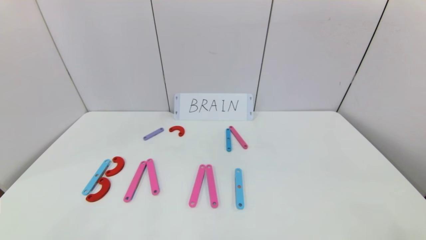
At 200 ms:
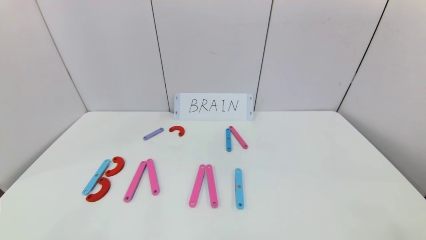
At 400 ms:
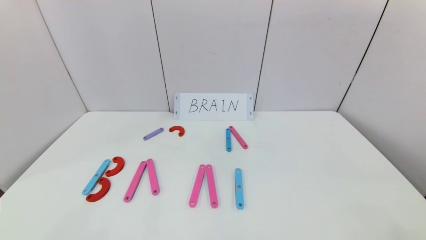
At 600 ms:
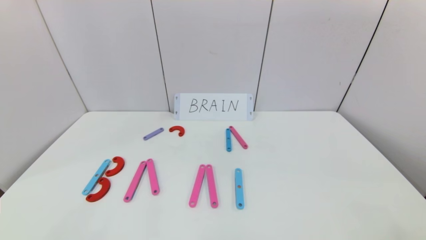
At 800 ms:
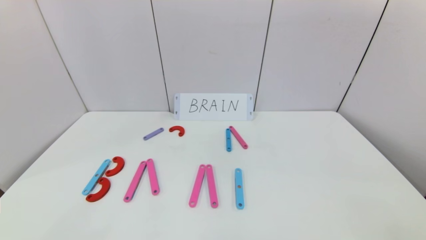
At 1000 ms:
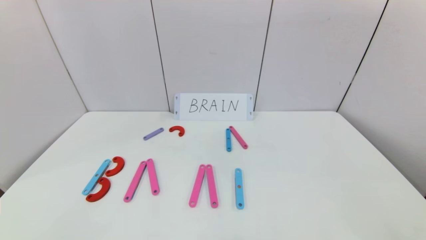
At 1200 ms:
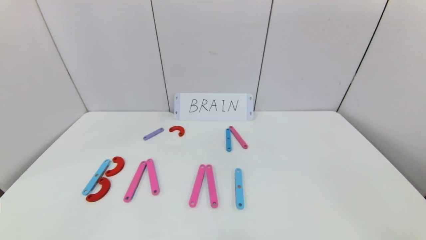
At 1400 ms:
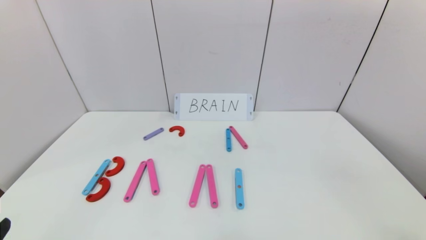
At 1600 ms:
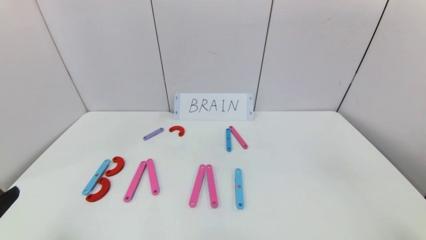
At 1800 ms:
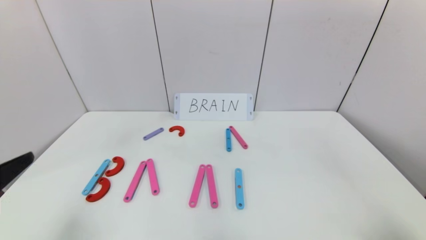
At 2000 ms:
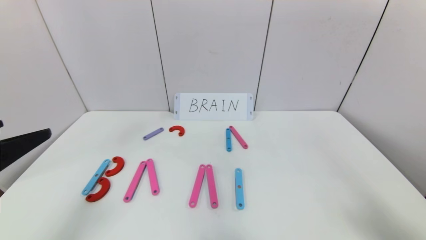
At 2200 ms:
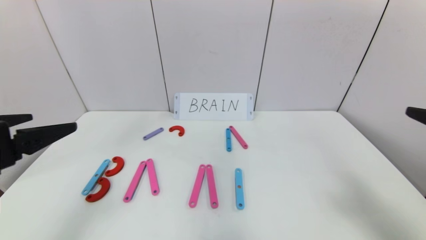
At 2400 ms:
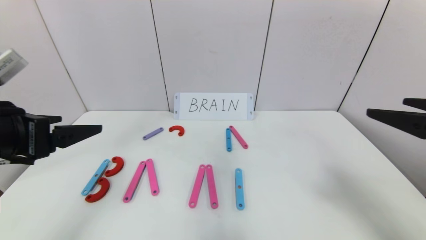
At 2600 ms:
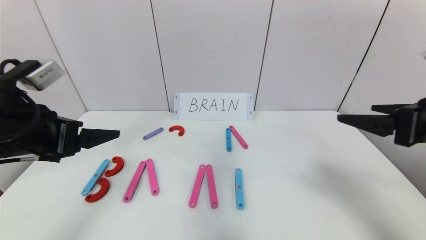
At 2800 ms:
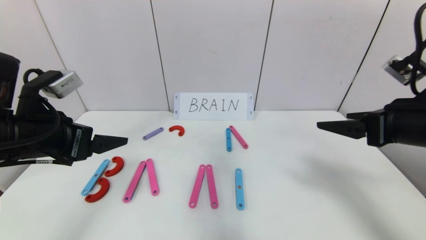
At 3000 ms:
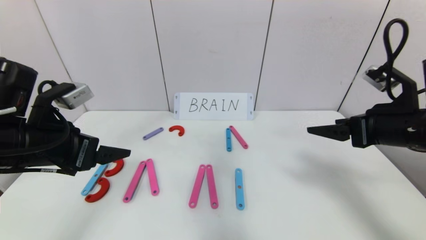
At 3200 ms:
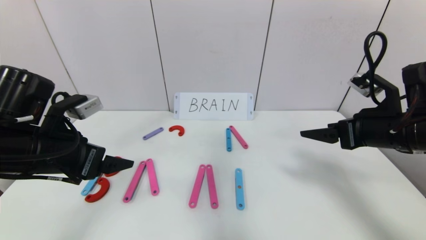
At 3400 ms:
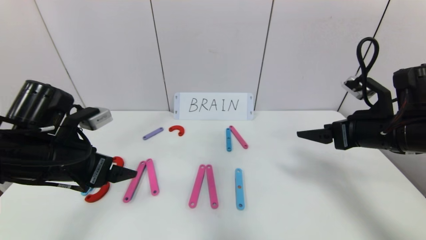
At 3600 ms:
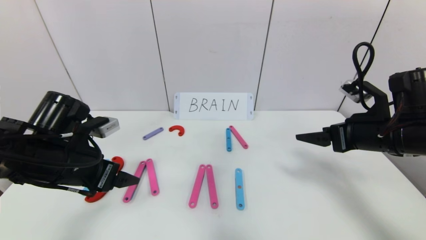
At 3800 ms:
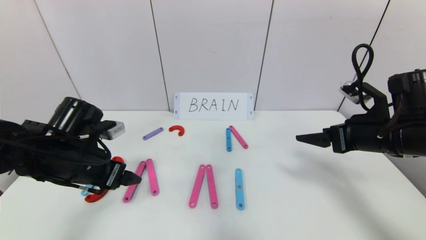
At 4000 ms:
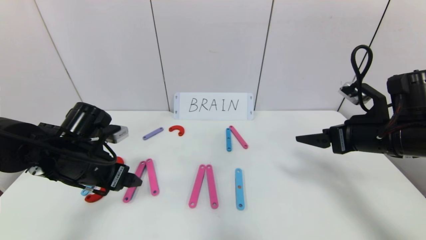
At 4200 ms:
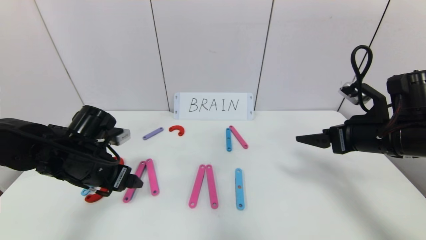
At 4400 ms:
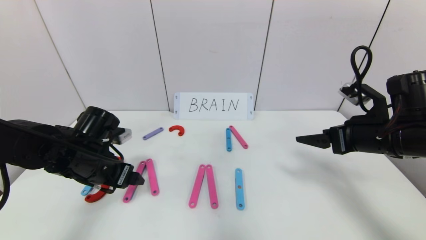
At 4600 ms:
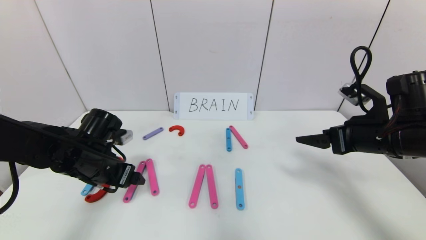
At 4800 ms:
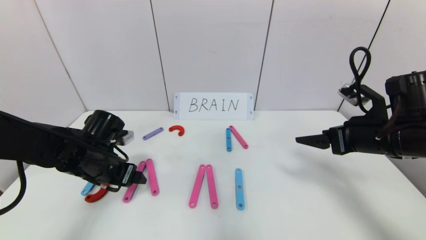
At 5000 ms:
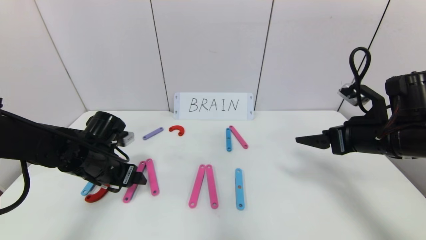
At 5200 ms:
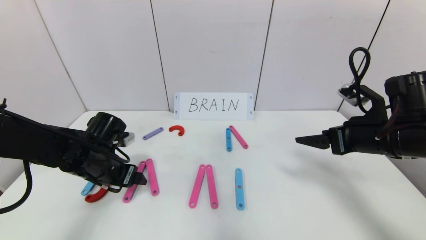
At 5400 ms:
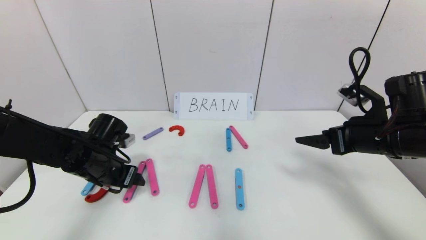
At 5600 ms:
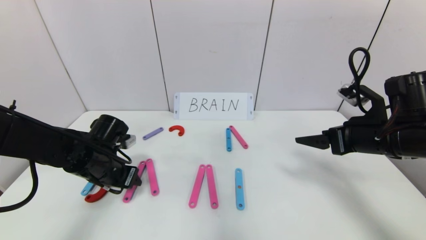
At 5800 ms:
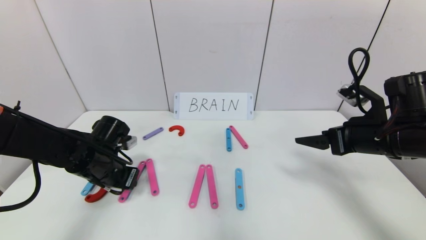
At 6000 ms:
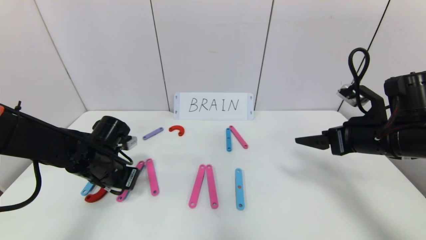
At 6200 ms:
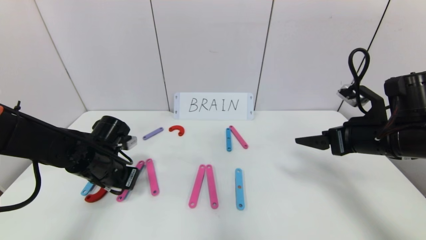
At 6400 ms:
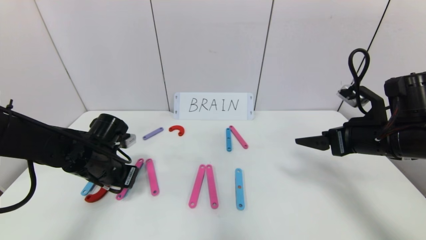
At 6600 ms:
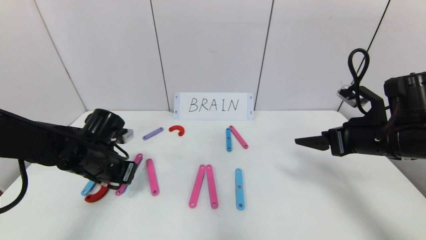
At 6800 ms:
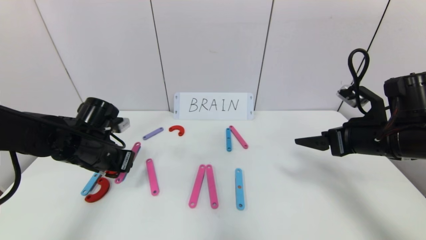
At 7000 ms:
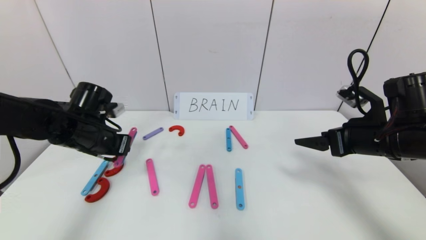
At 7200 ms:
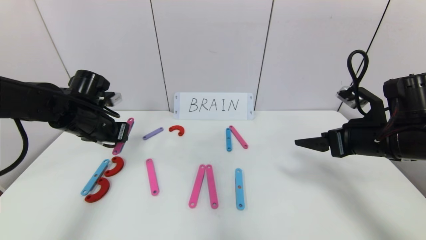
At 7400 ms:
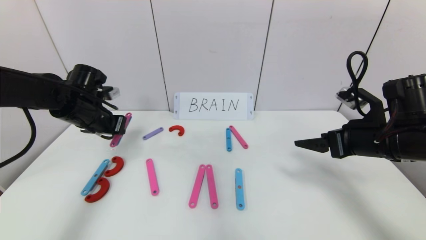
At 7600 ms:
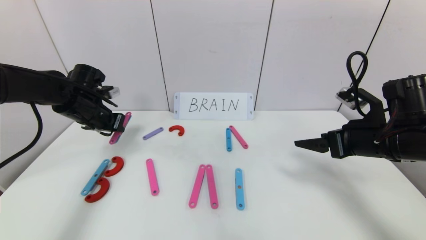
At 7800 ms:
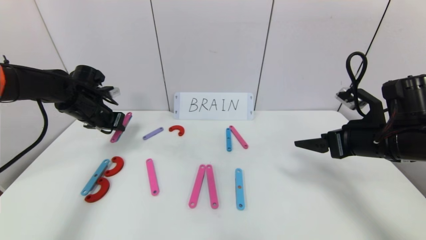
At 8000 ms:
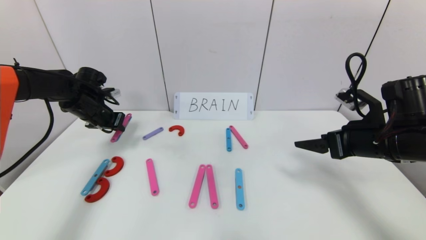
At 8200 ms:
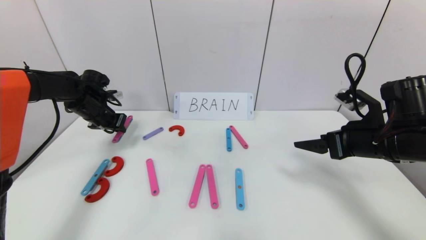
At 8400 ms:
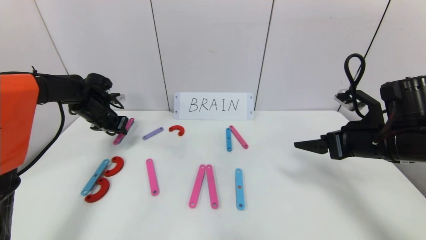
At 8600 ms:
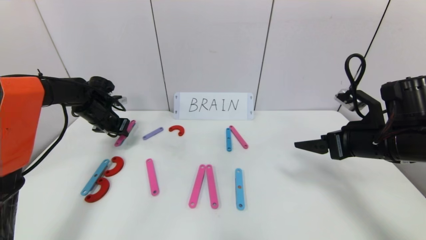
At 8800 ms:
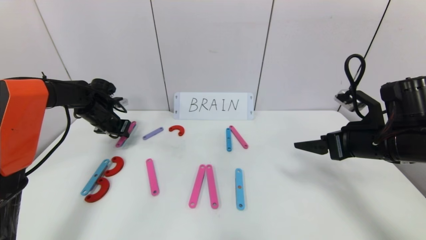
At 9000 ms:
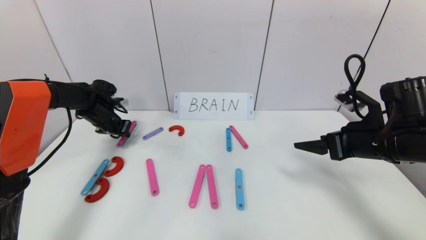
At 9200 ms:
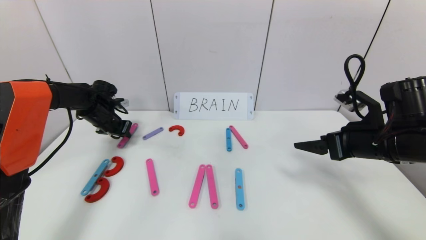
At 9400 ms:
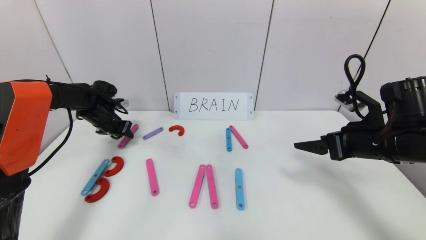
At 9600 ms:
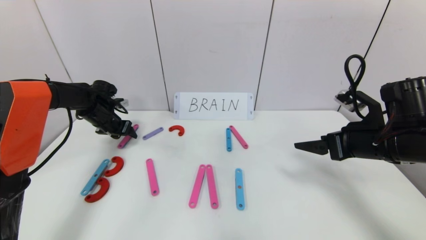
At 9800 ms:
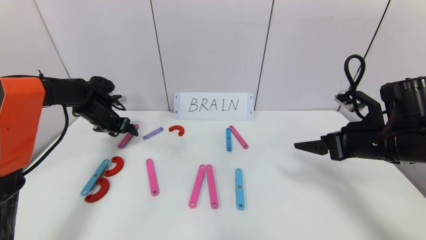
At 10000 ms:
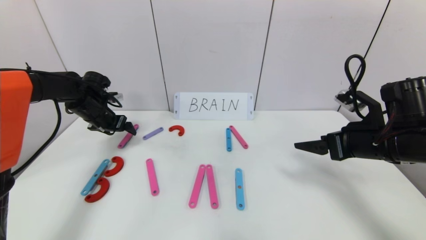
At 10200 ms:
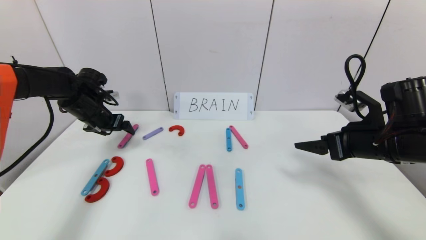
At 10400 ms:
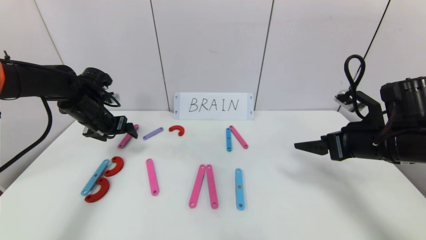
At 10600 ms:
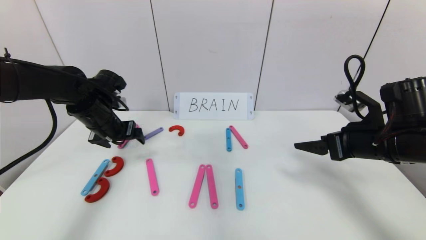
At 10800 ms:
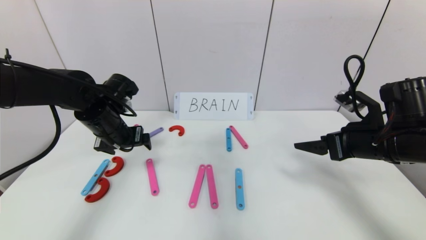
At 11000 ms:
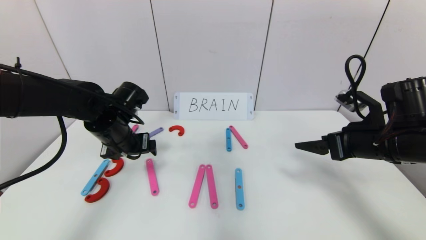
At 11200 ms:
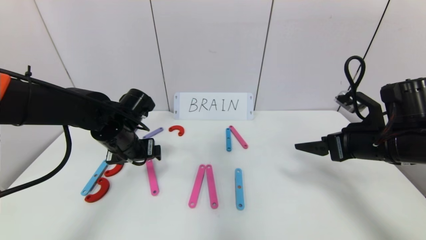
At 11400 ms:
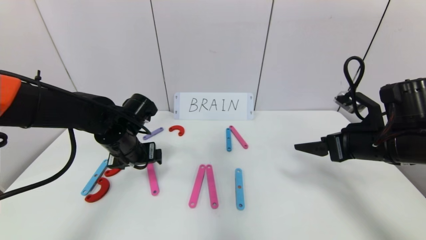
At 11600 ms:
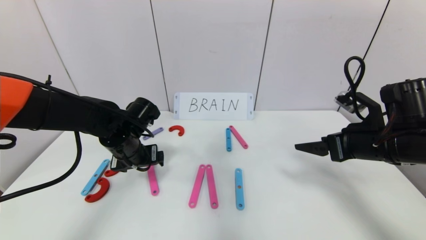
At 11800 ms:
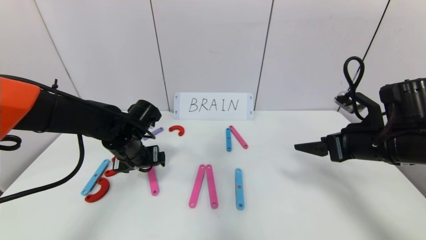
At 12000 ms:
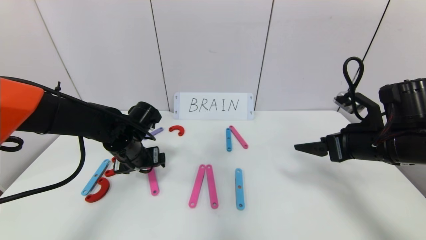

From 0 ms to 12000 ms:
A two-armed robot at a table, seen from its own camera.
Task of the whole recording: rearrange the word baai as brain.
From 1600 ms to 3000 ms: Both grippers move forward, approximately 20 cm.
From 3000 ms to 4400 ms: The left gripper shifts about 10 cm downward and forward.
From 4400 ms to 6000 ms: The left gripper closes its fingers.
From 6000 ms to 7600 ms: The left gripper travels forward, upward and to the left by approximately 15 cm.
From 7600 ms to 9000 ms: The left gripper goes about 10 cm forward and downward.
From 9000 ms to 10400 ms: The left gripper goes approximately 10 cm backward and upward, and opens.
From 10400 ms to 12000 ms: The left gripper moves to the right, backward and downward, approximately 15 cm.

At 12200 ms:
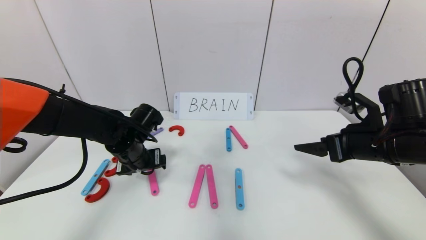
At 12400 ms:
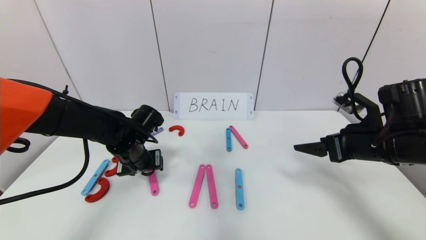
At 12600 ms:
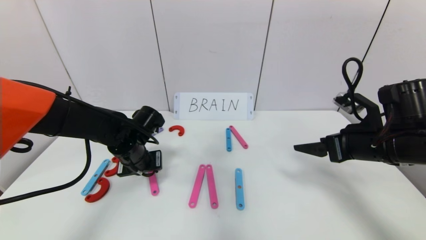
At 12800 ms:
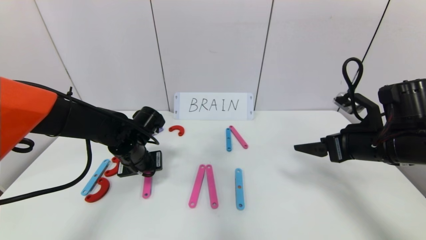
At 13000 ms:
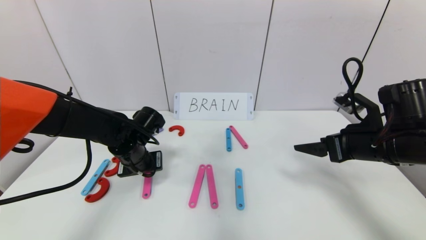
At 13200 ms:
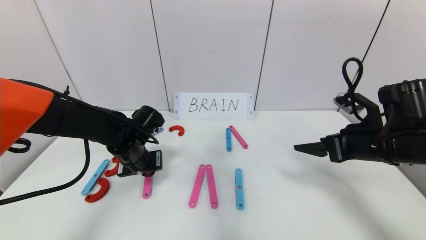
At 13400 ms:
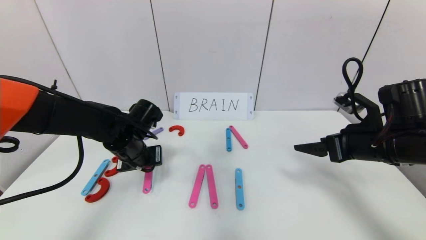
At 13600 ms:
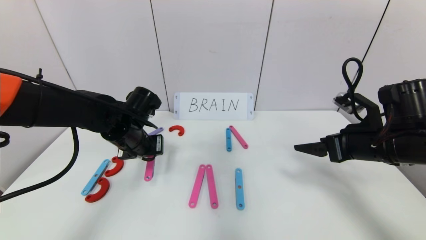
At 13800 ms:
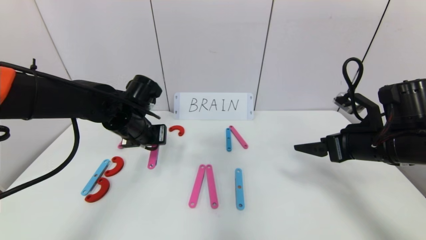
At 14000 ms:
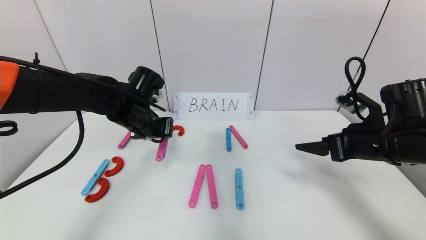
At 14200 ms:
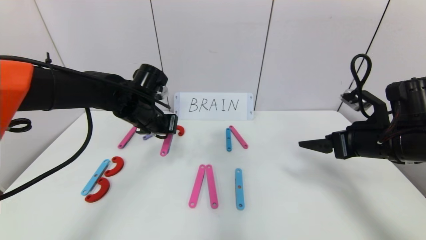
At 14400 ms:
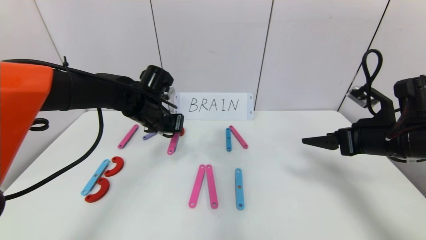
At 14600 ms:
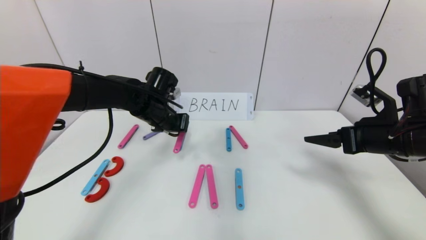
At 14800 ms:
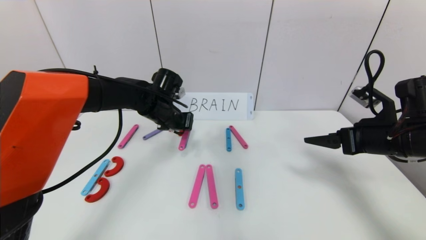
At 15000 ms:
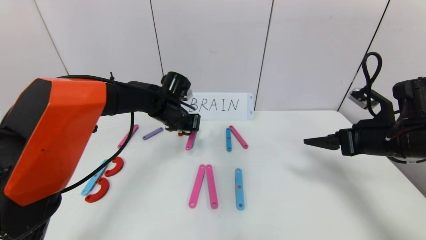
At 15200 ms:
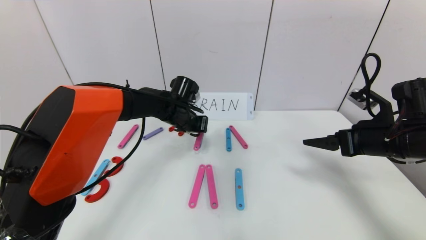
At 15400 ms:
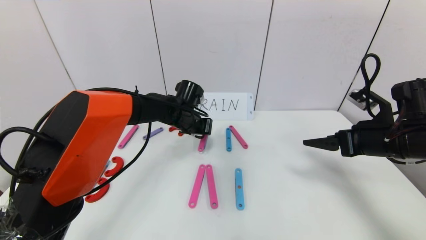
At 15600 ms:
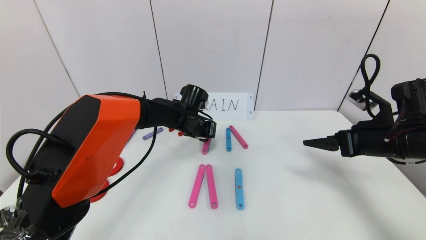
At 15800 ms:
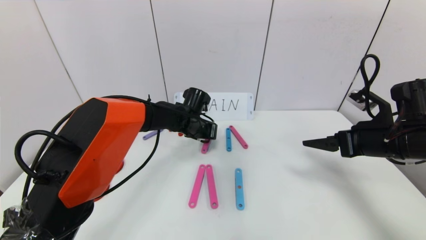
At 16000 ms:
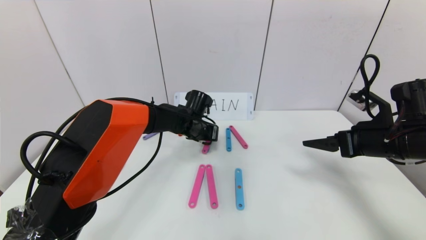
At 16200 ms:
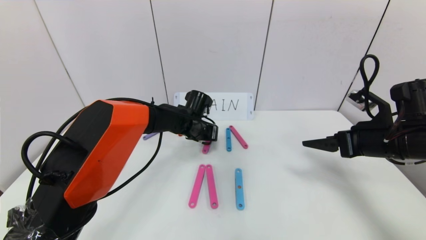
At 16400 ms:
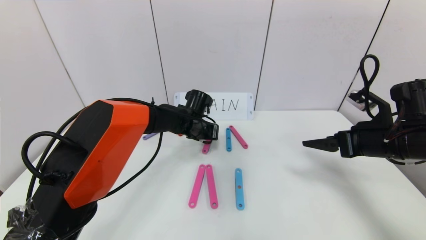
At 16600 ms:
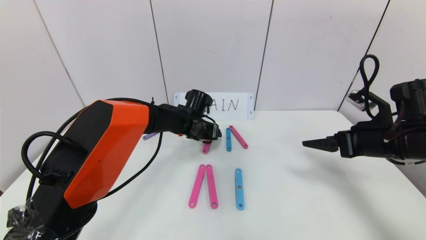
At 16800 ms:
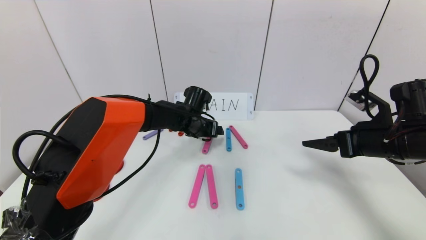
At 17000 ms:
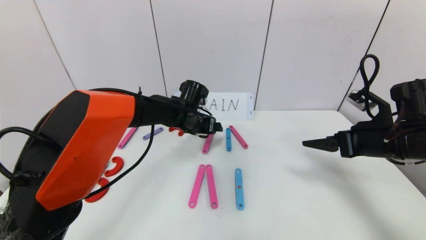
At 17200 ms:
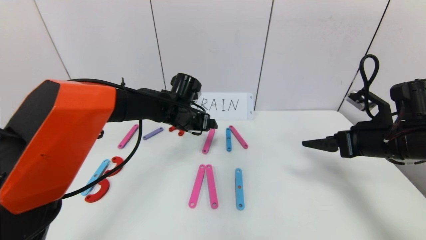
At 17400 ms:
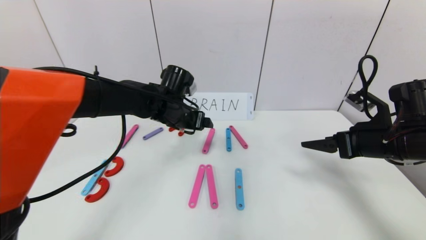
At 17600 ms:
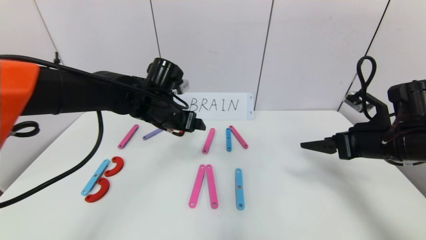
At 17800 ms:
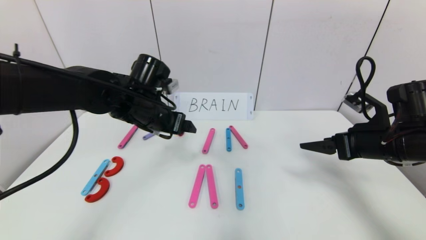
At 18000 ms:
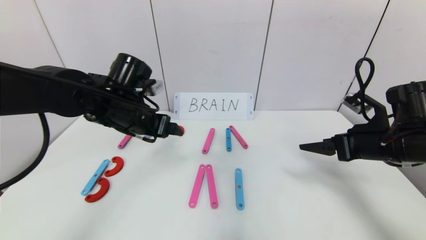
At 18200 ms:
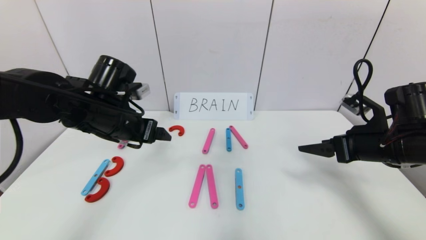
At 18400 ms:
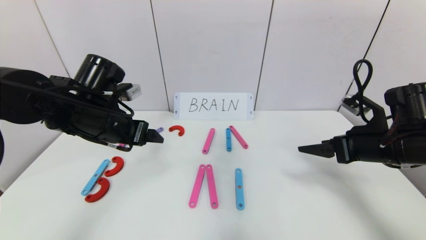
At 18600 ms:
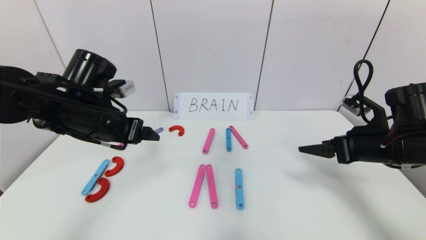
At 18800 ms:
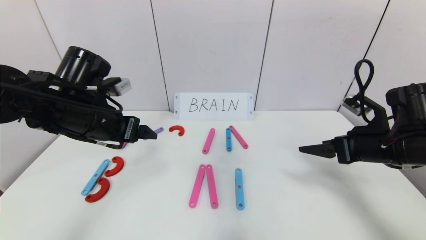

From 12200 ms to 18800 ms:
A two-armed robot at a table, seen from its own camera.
Task of the whole recording: rearrange the word baai as brain.
Step, from 12200 ms to 16800 ms: Disassemble the second character A.
From 12200 ms to 13800 ms: The left gripper goes approximately 5 cm upward, and closes.
From 13800 ms to 15400 ms: The left gripper shifts approximately 15 cm forward and to the right.
From 15400 ms to 17200 ms: The left gripper opens.
From 17200 ms to 18800 ms: The left gripper moves backward, to the left and upward, some 20 cm.
